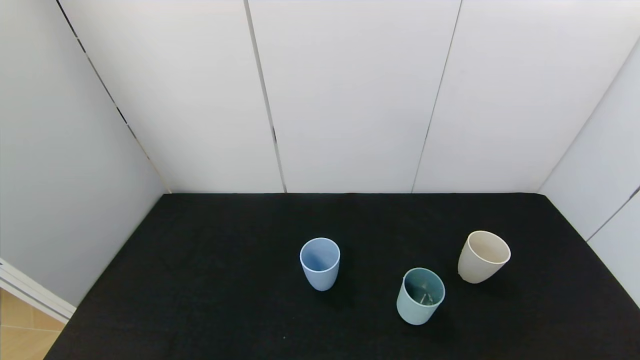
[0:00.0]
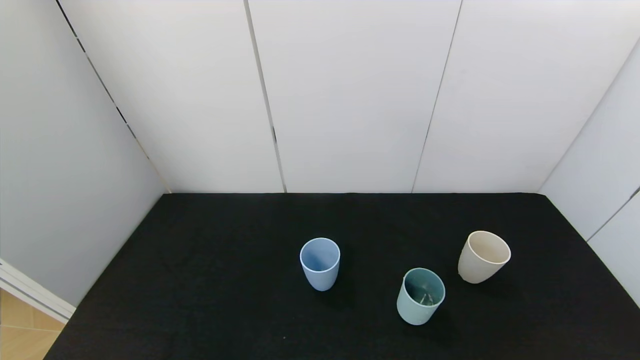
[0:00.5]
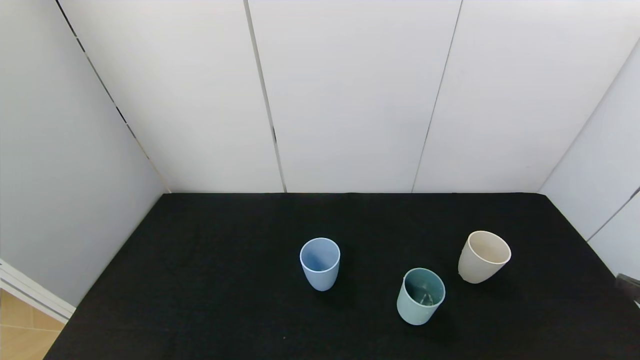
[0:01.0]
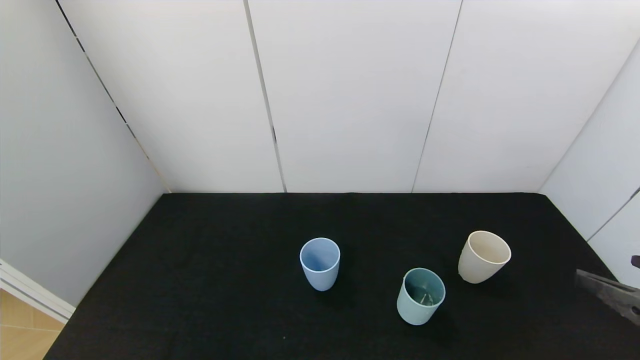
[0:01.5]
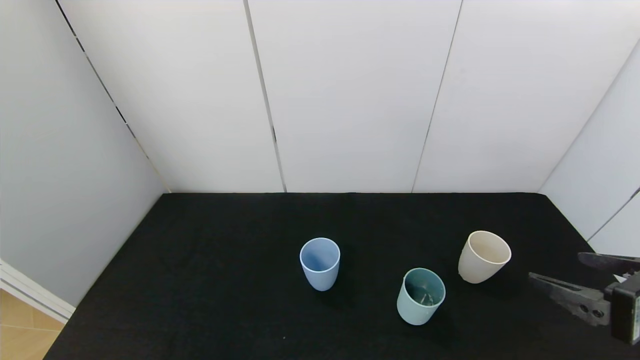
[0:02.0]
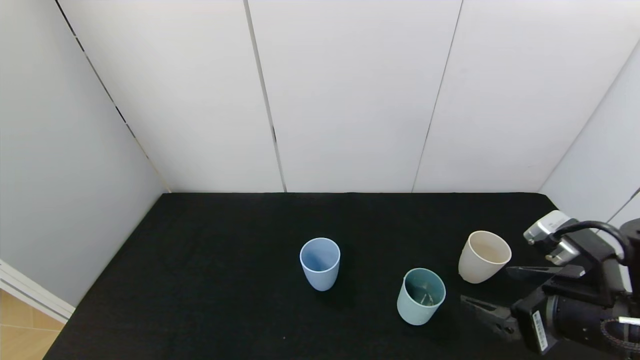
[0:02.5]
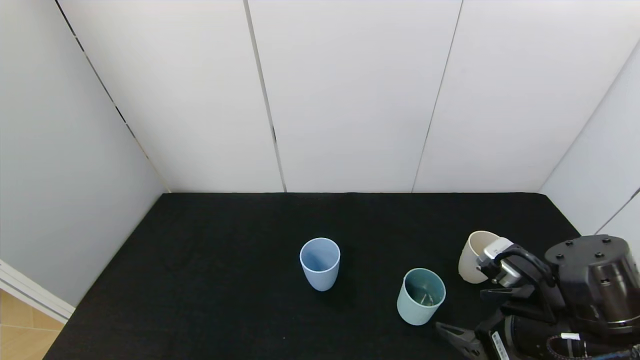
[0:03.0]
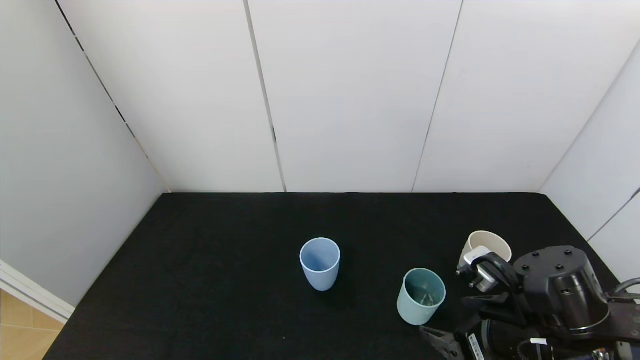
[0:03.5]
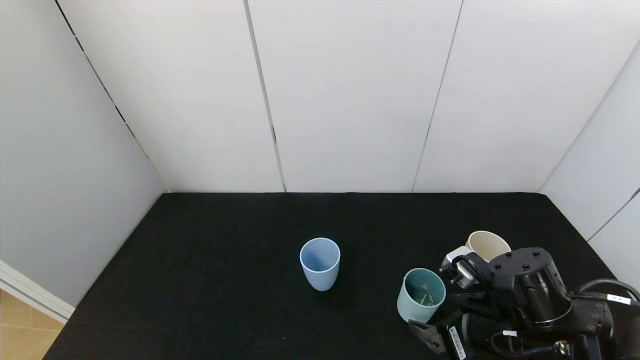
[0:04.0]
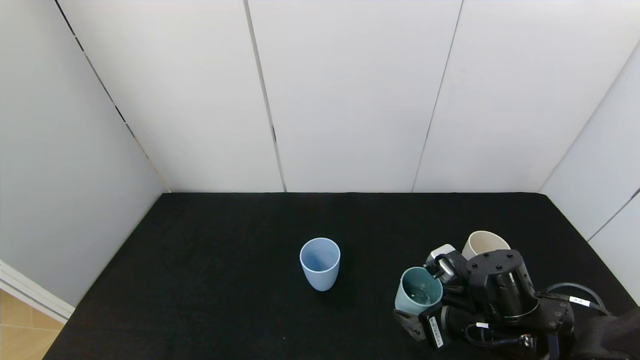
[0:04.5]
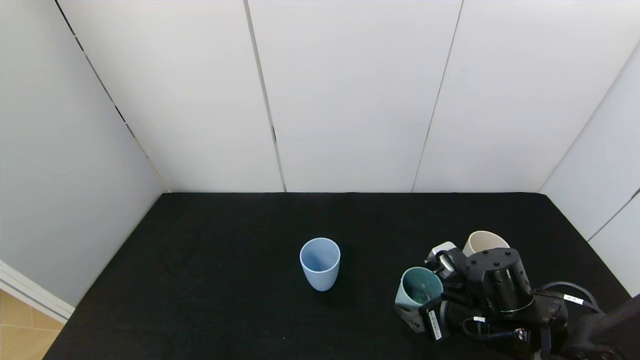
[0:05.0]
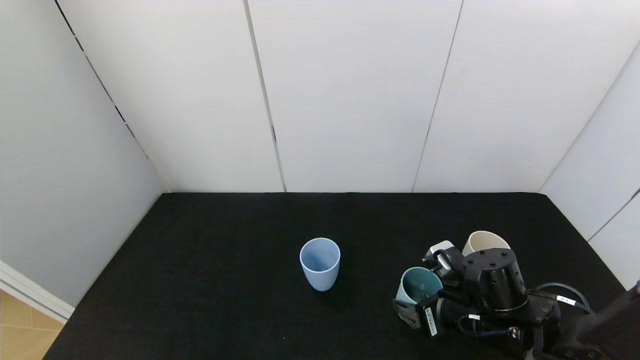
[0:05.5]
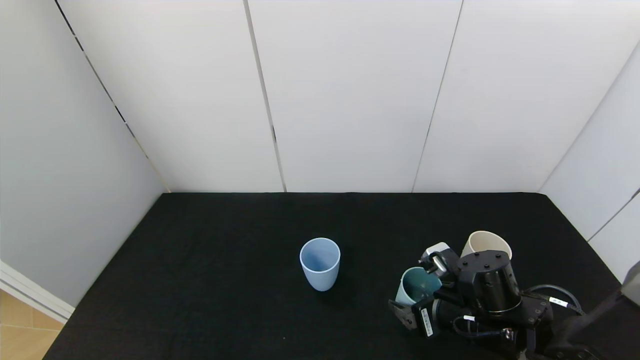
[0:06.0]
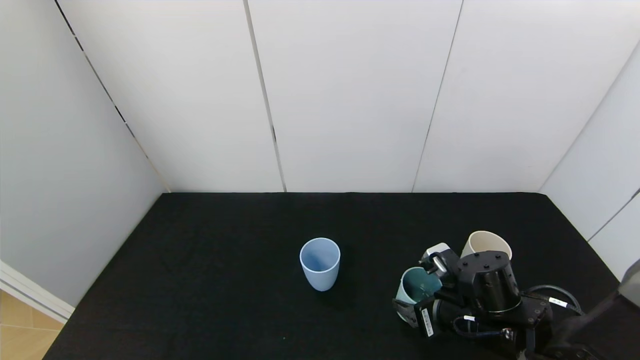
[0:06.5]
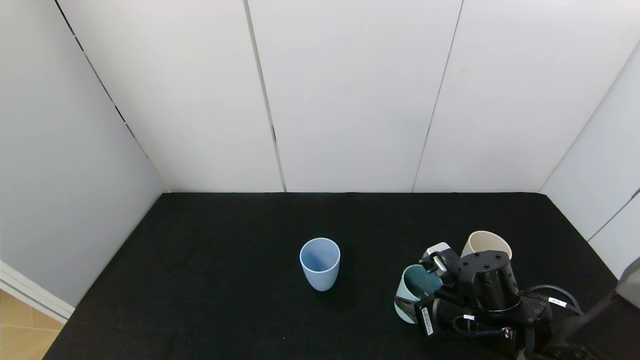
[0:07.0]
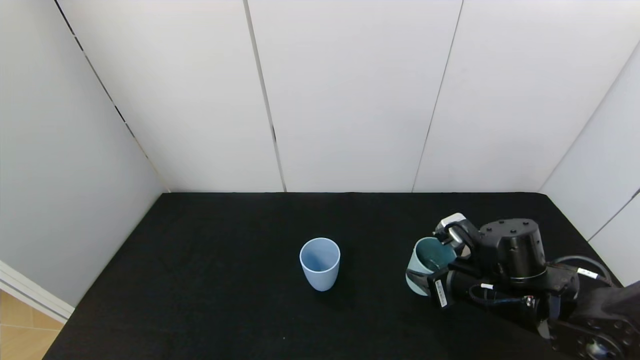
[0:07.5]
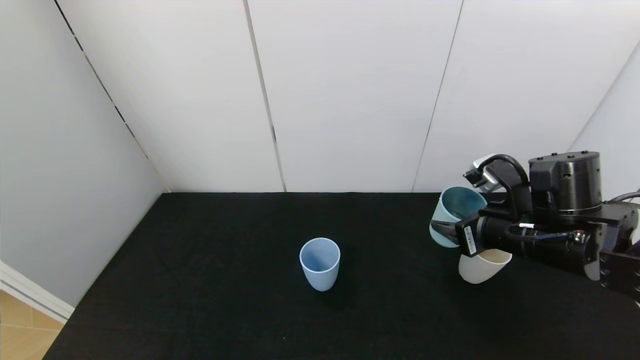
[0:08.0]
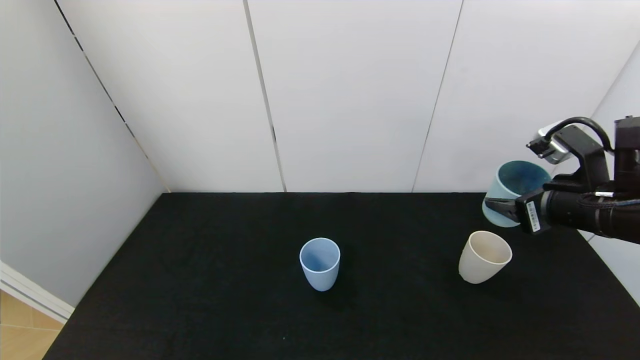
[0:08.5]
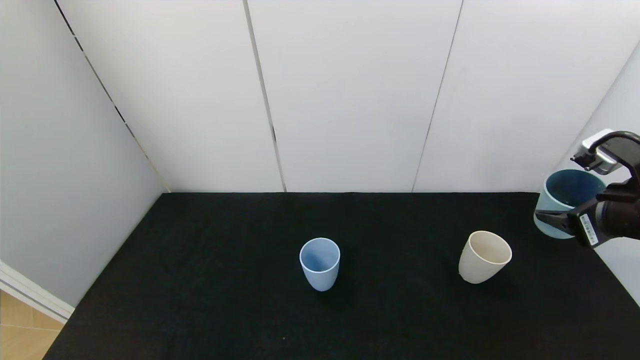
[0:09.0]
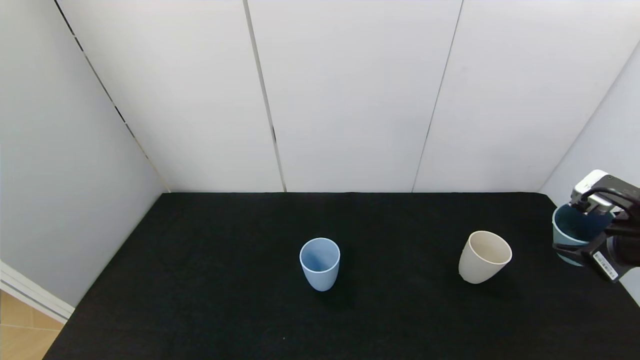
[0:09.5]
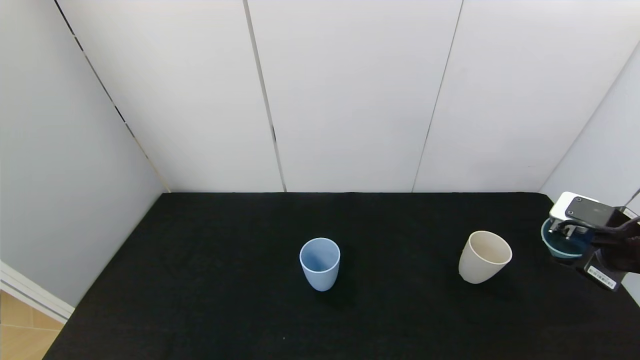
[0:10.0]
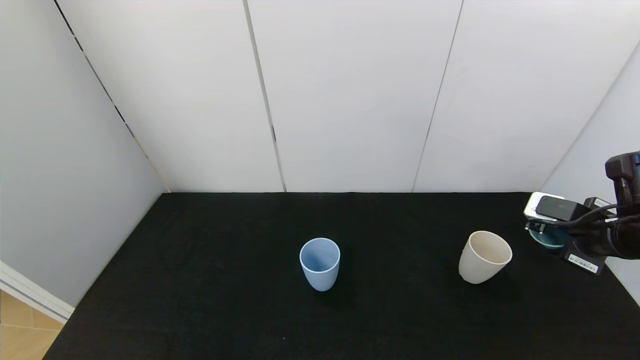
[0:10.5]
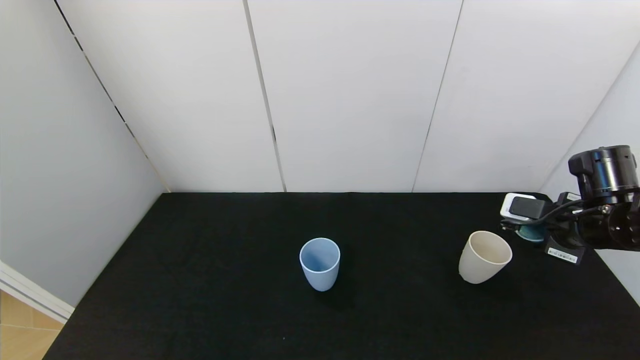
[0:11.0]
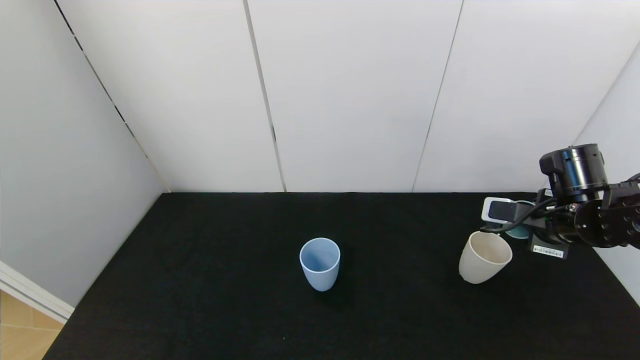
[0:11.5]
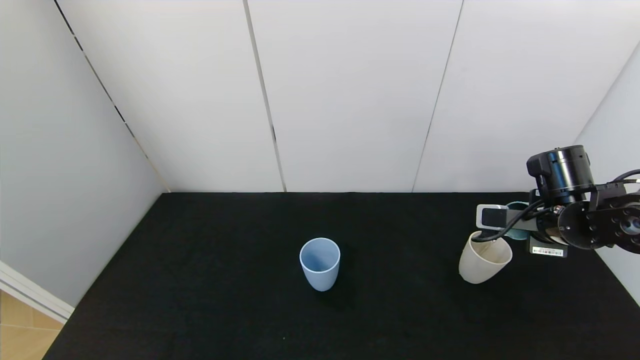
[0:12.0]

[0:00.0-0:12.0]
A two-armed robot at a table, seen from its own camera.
Task of the whole recording: use the gripper to pour the water into the other two cups on black table.
Step, 0:00.0 to 0:07.0: Grasp the green cup with the right gripper.
0:00.0 to 0:02.0: The right gripper shifts some 20 cm forward and upward.
0:02.0 to 0:04.0: The right gripper moves downward, to the left and forward, about 15 cm.
0:04.0 to 0:06.0: The right gripper changes place by about 5 cm.
0:06.0 to 0:08.0: The right gripper shifts about 15 cm upward, and closes.
0:08.0 to 0:10.0: The right gripper travels to the right by roughly 15 cm.
0:10.0 to 0:12.0: The right gripper goes some 10 cm forward and to the left.

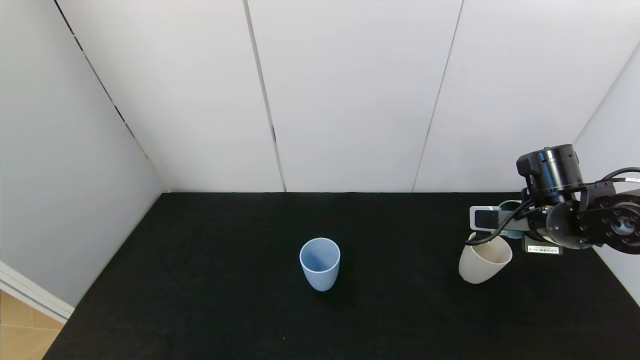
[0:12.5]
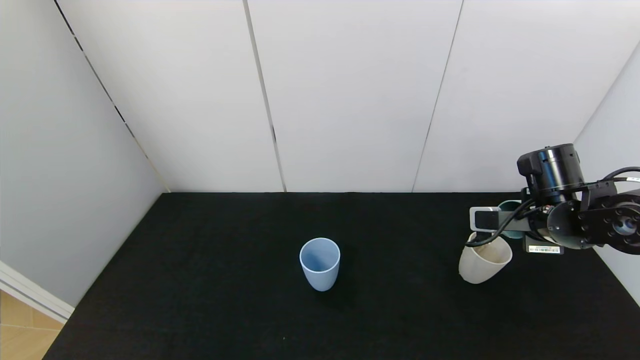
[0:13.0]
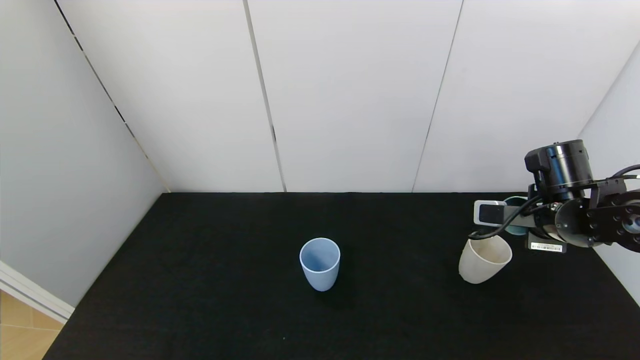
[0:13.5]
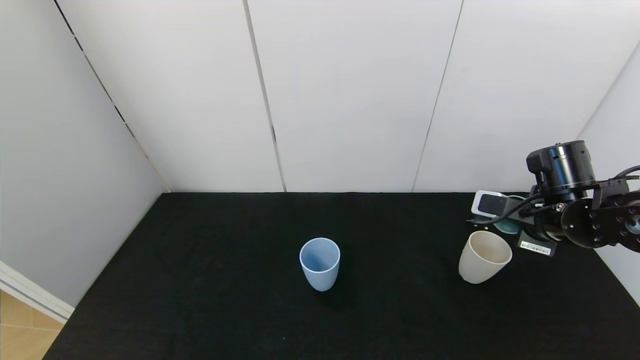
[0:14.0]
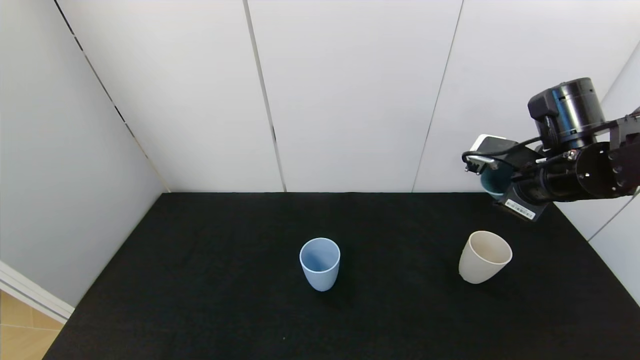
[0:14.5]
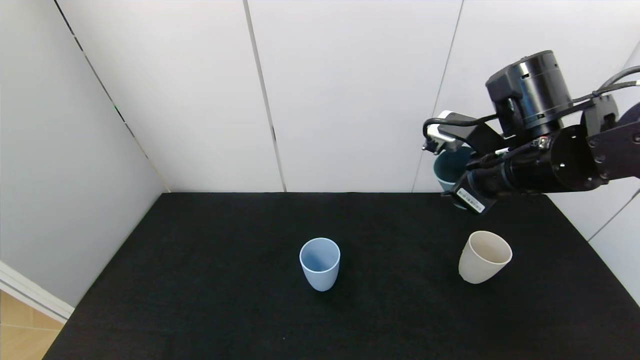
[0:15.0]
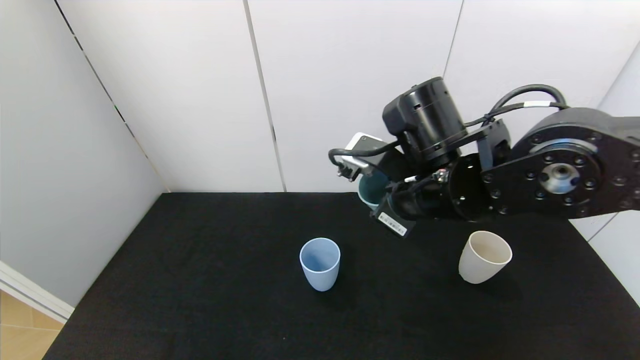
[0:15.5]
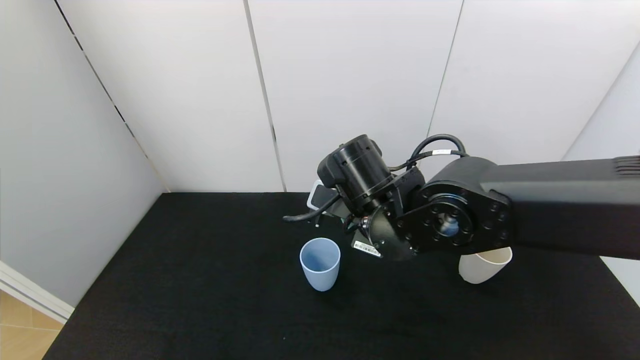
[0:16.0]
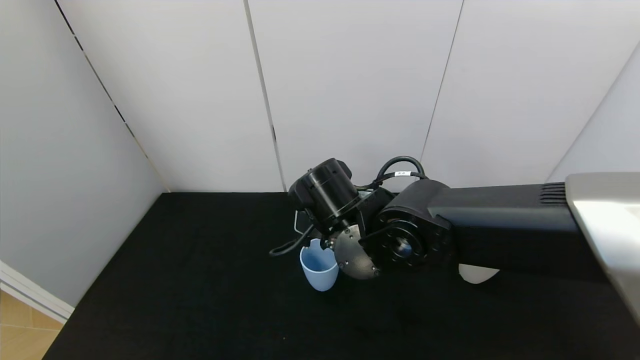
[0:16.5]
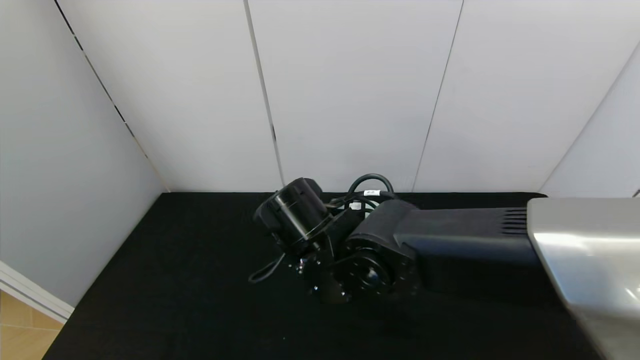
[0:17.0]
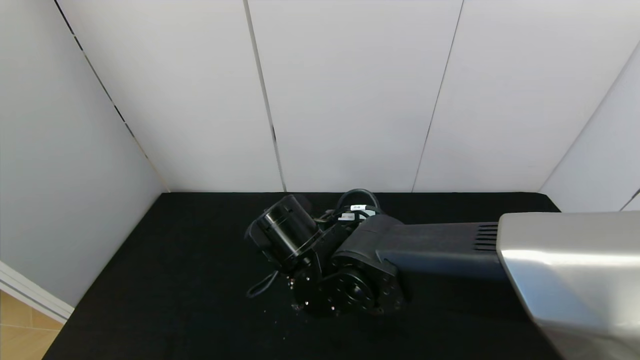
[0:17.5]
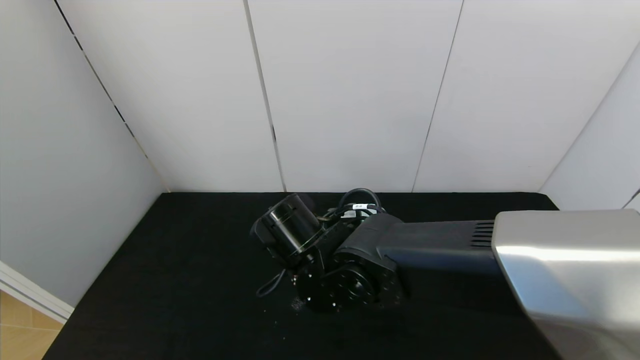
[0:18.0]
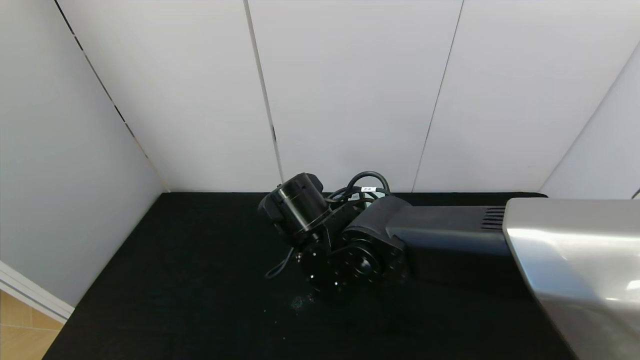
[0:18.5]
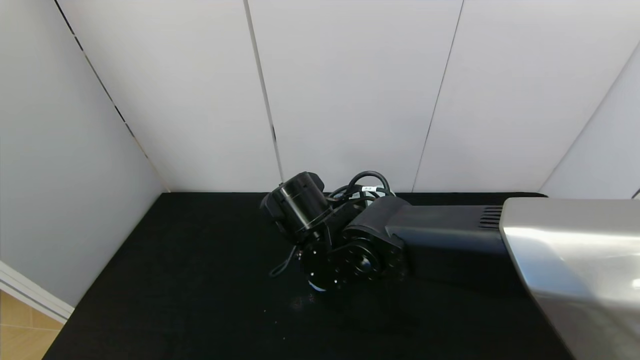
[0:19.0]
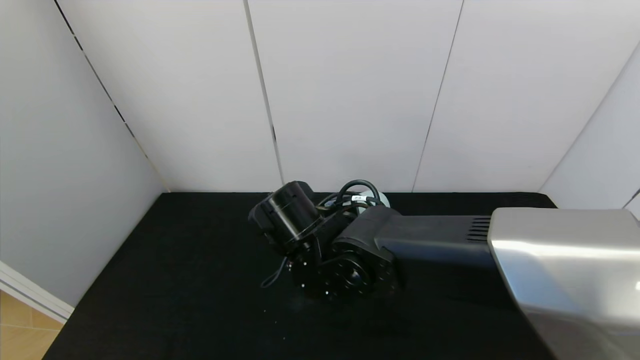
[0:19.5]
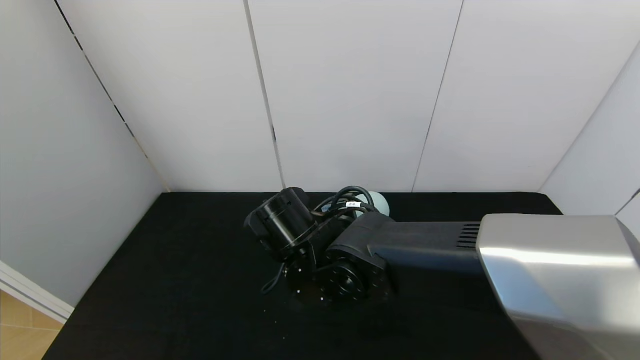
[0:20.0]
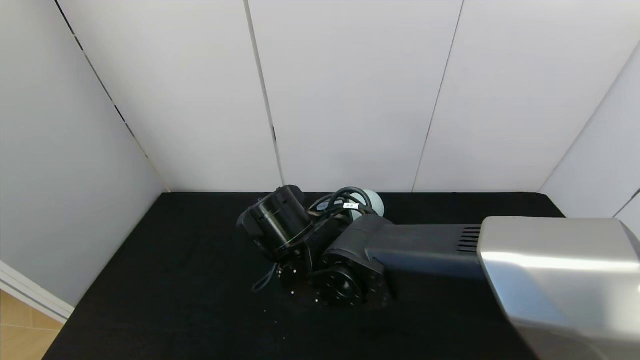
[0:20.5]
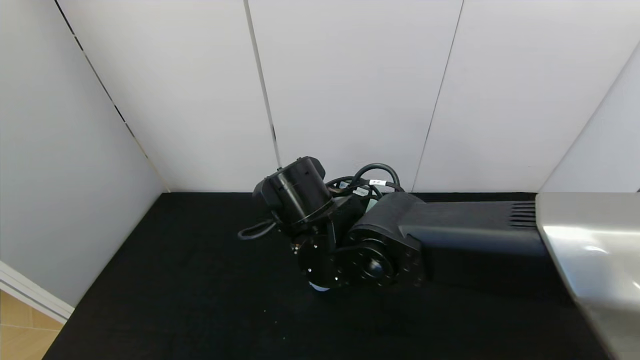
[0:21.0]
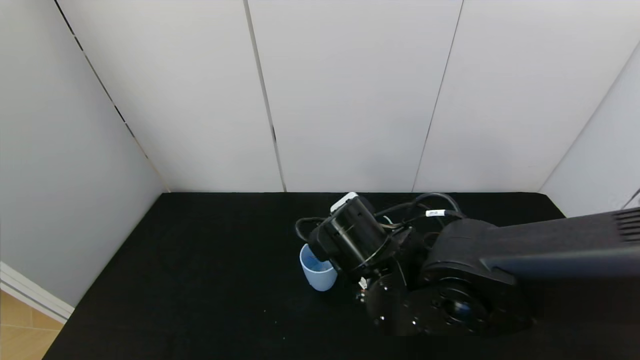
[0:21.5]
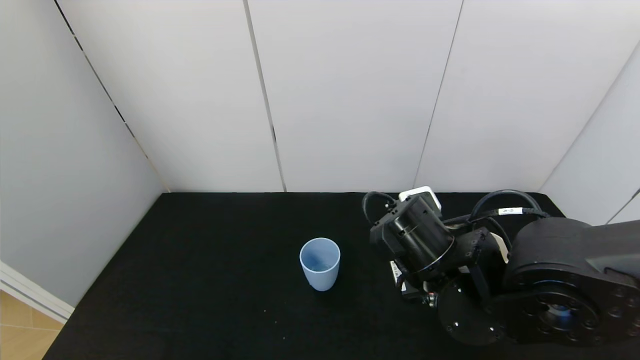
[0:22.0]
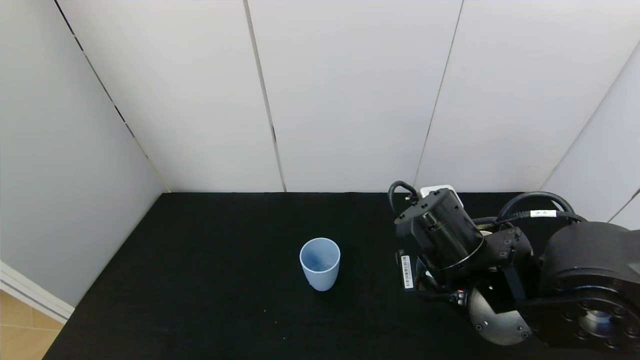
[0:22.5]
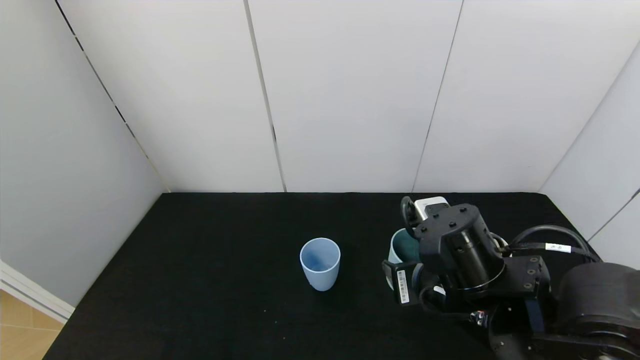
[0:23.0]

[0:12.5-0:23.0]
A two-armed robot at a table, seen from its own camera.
Task of the whole recording: use the gripper to pour the water into the other two cups on black table.
Step, 0:14.5 to 0:21.5: Pour water from green cup to blue cup with the right gripper.
0:12.5 to 0:14.5: The right gripper is displaced upward by roughly 10 cm.
0:14.5 to 0:16.5: The right gripper heads to the left, covering about 25 cm.
0:21.0 to 0:23.0: The right gripper goes roughly 15 cm to the right and backward.
